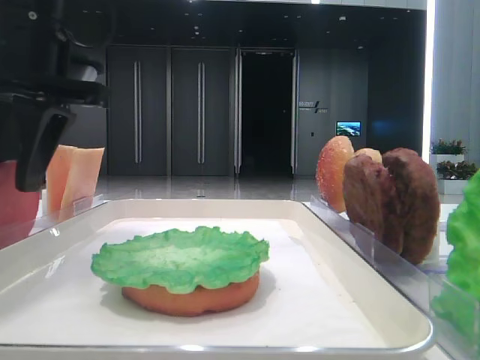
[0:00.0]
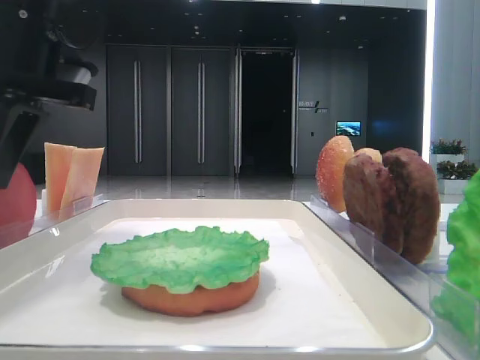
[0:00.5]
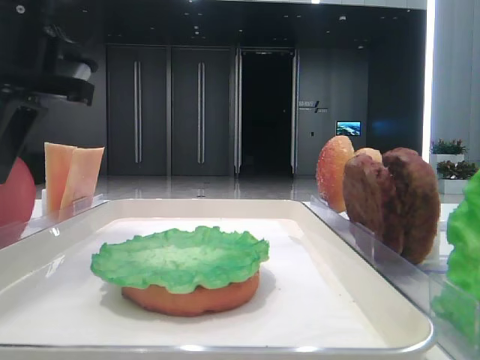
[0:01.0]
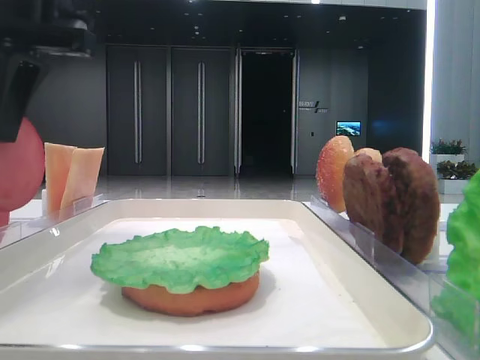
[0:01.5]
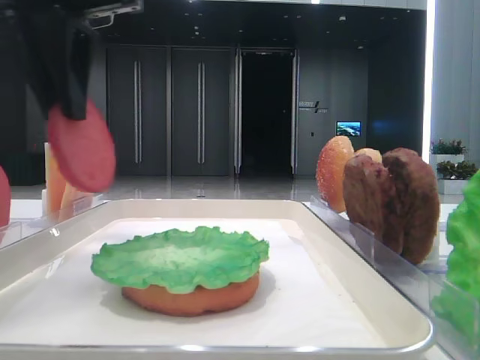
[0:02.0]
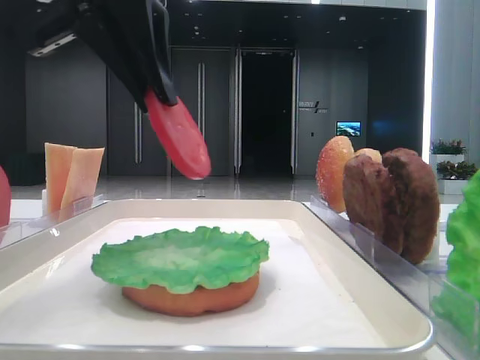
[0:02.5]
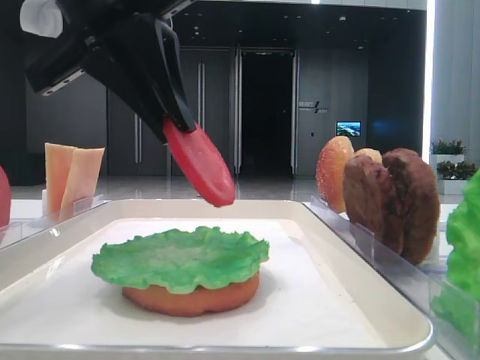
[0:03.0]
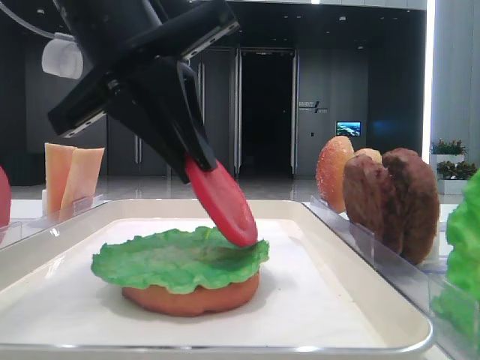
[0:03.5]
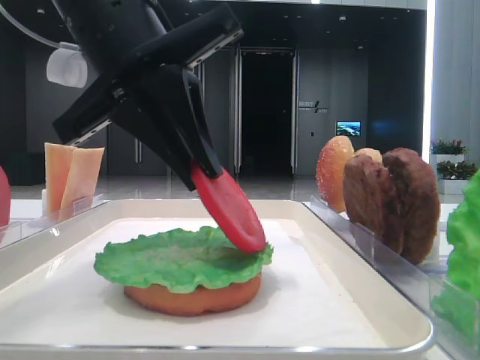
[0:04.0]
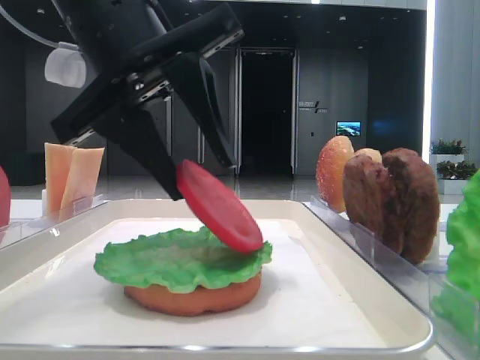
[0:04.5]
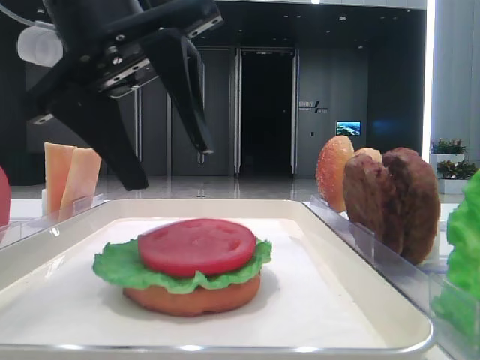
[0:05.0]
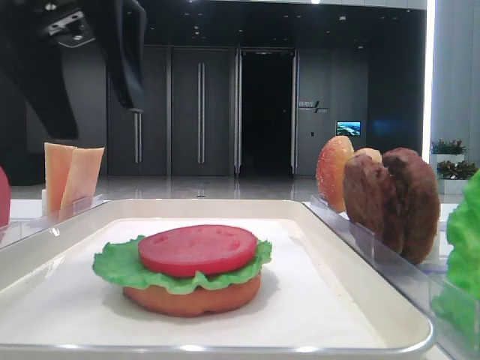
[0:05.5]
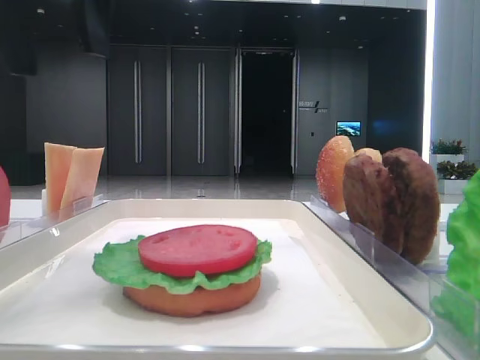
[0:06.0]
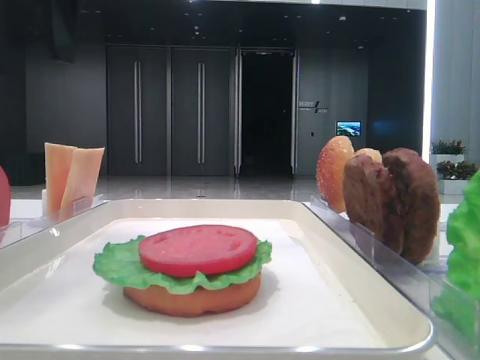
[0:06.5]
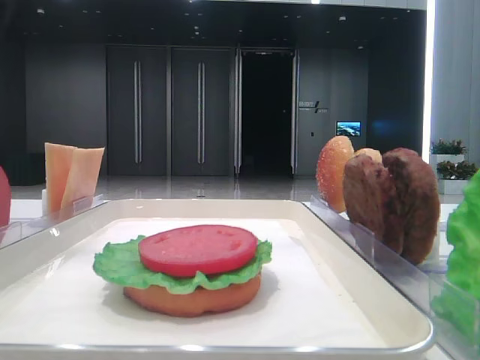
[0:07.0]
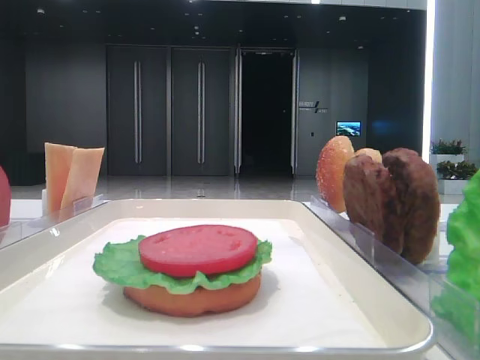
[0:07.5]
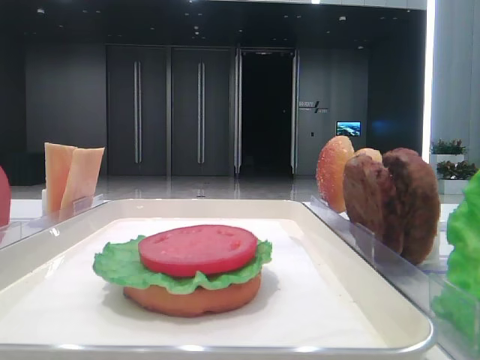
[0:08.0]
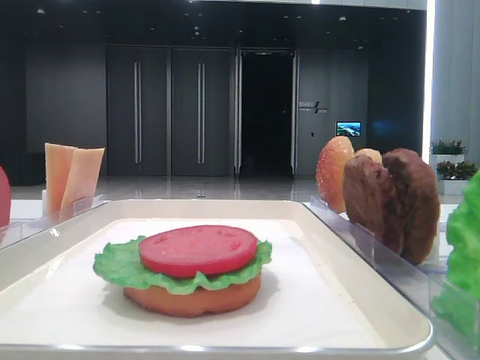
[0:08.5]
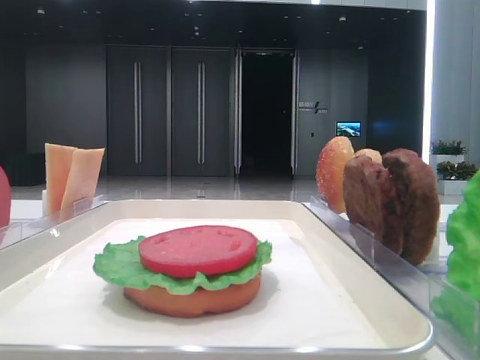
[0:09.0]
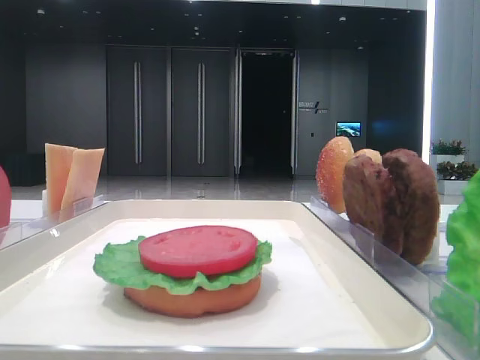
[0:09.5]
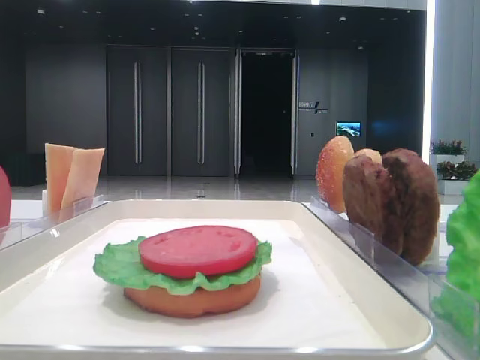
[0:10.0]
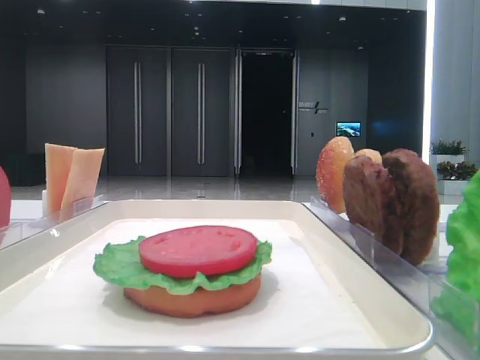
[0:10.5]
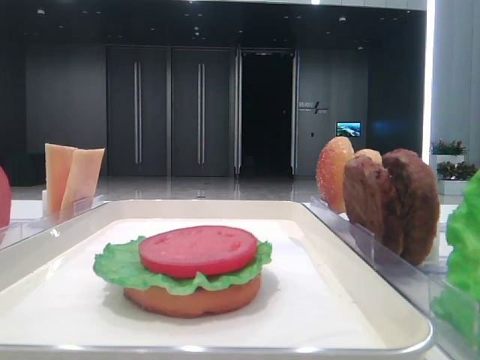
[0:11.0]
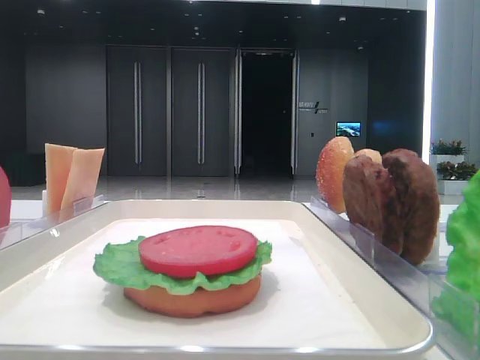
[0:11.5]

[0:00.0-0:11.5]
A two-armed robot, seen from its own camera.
Step, 0:00.5 to 0:05.0: Place the tomato slice on the lettuce leaf with the left hand.
0:00.0 to 0:02.0: The left gripper is displaced upward by approximately 5 cm, and closes its fingers.
0:02.0 to 0:04.0: The left gripper shifts some 10 cm downward and to the right.
0:04.0 to 0:06.0: The left gripper is displaced upward and to the left by some 10 cm, and opens its fingers.
0:06.0 to 0:07.5: The left gripper heads to the left, covering roughly 15 cm.

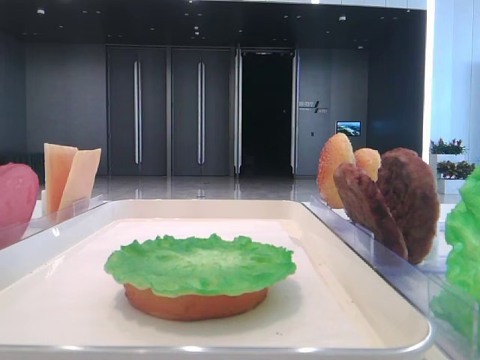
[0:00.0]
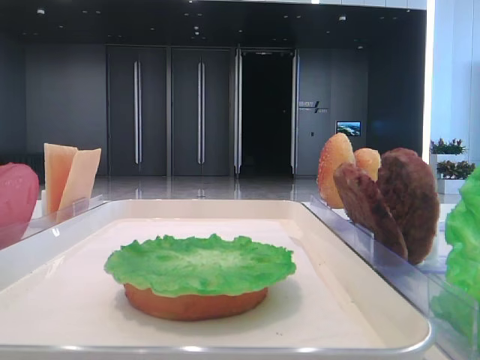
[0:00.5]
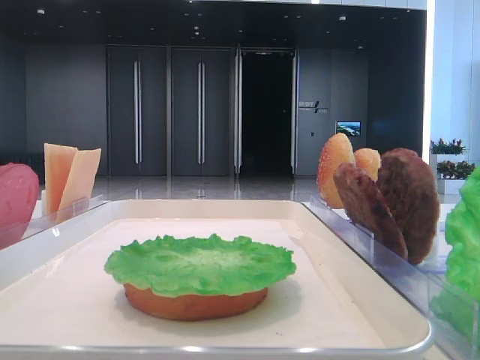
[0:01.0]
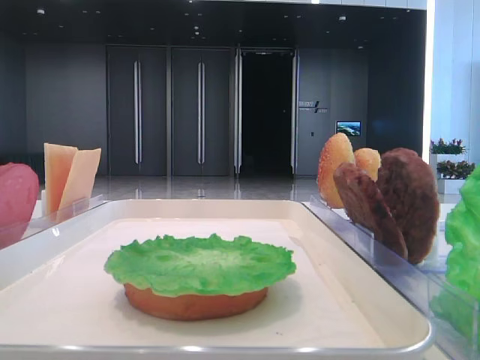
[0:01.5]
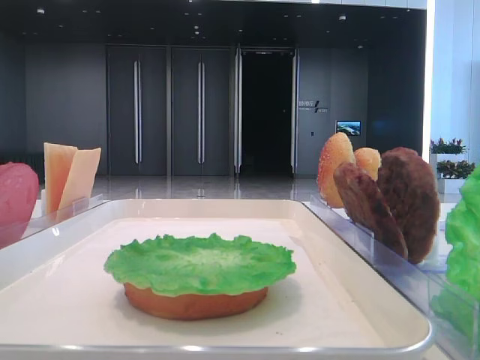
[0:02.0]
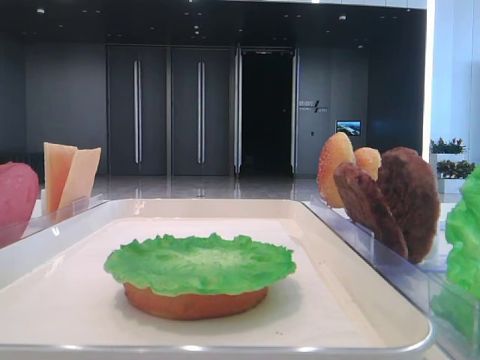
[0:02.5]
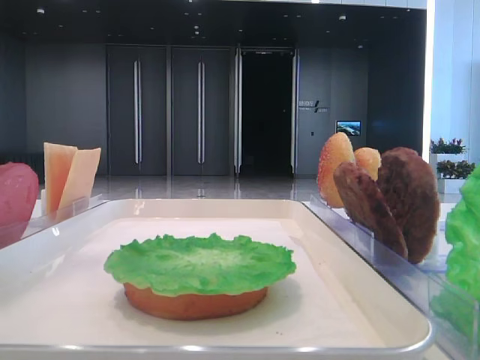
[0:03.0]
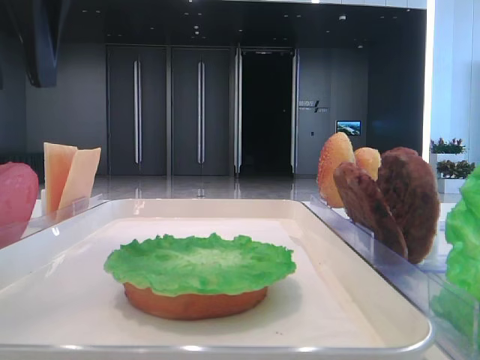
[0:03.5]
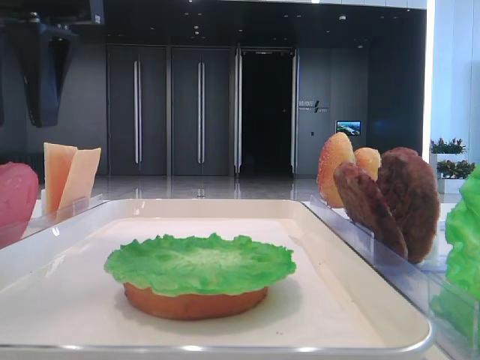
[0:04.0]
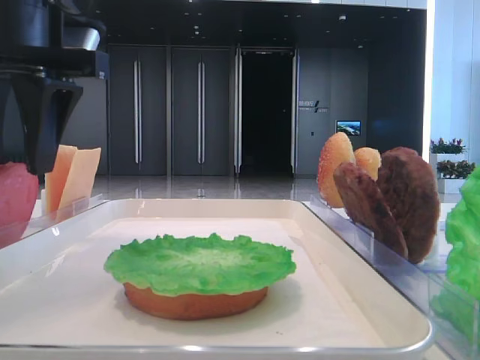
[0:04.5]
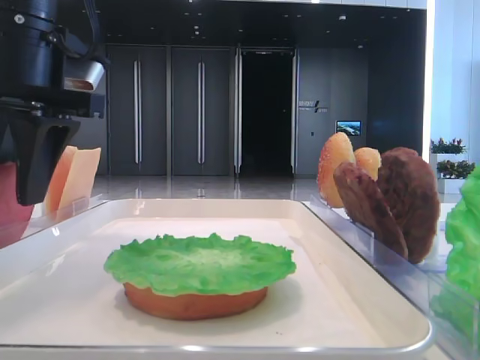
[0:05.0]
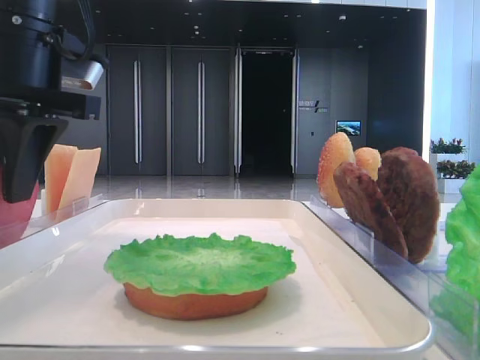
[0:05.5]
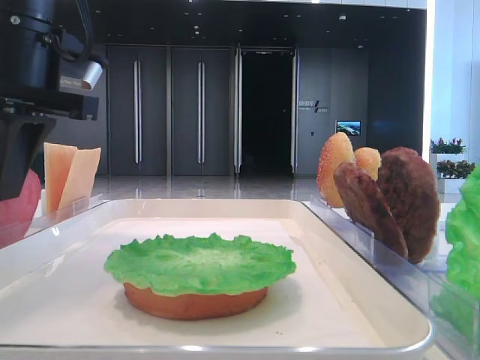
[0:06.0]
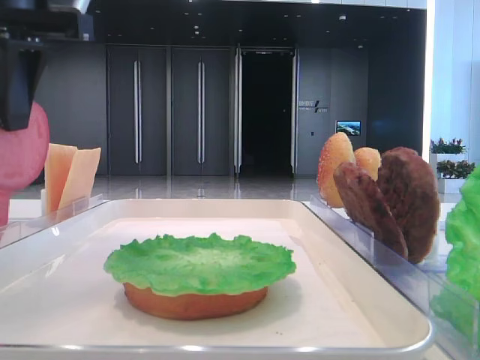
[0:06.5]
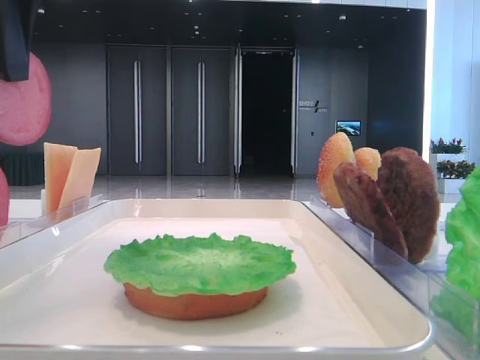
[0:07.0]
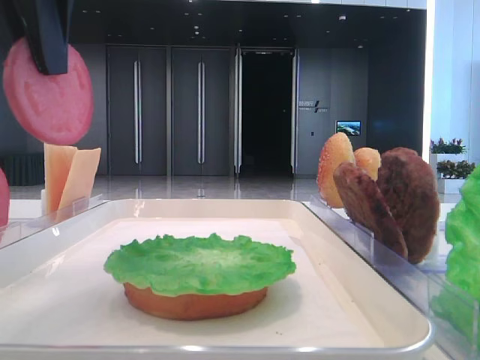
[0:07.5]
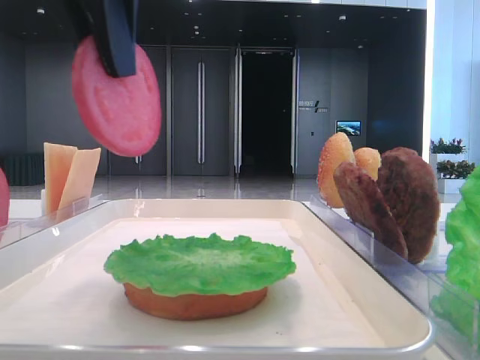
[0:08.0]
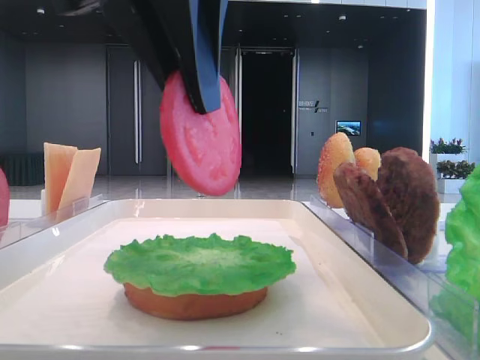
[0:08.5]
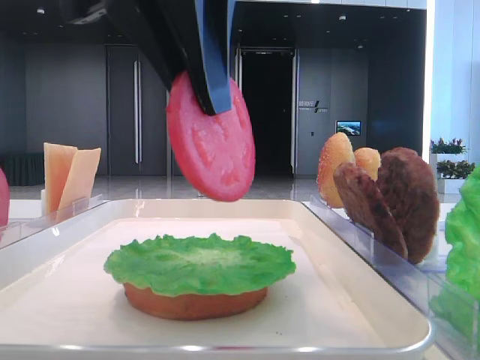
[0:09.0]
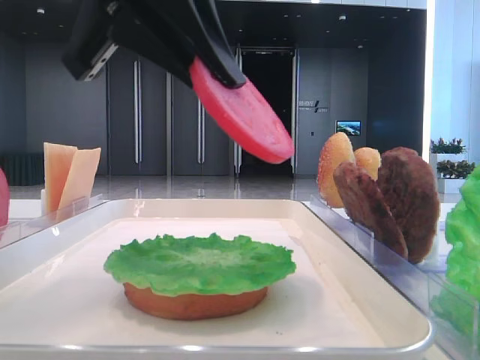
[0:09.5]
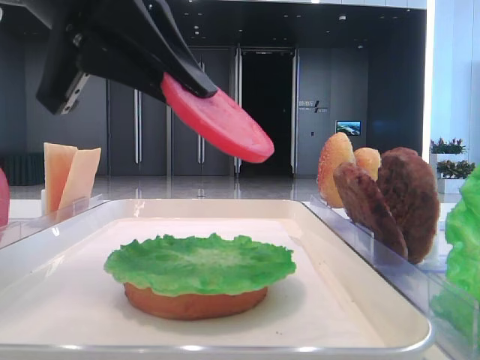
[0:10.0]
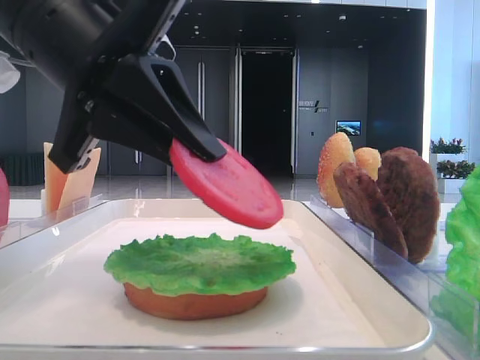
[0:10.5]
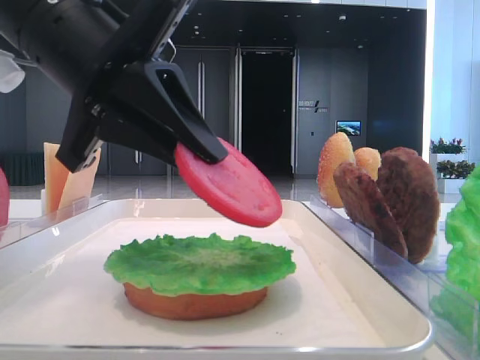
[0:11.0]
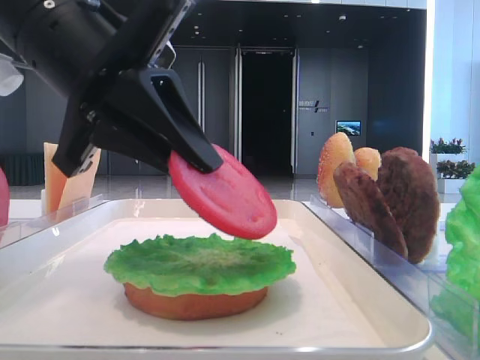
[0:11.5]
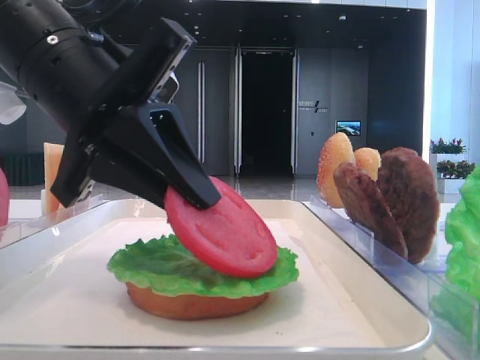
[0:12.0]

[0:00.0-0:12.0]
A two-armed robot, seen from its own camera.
Step, 0:00.0 to 0:05.5: Pick up the tomato slice with the left hand.
0:02.0 to 0:04.0: The left gripper shifts some 15 cm to the right.
0:04.0 to 0:06.0: The left gripper moves downward, approximately 5 cm, and closes.
0:06.0 to 0:08.0: The left gripper travels backward, upward and to the right by some 15 cm.
0:08.0 to 0:10.0: The left gripper is displaced downward by some 5 cm.
0:10.0 to 0:12.0: The left gripper heads downward, covering approximately 5 cm.

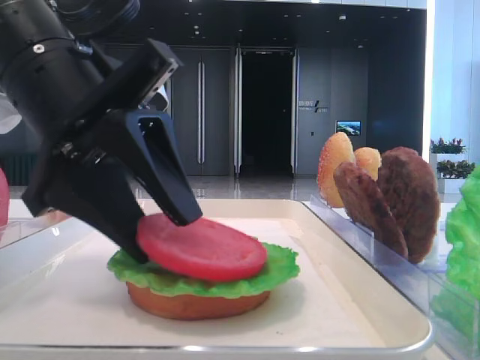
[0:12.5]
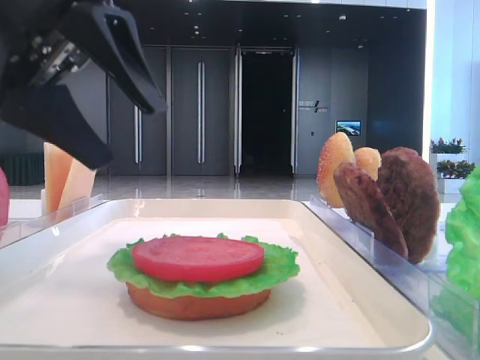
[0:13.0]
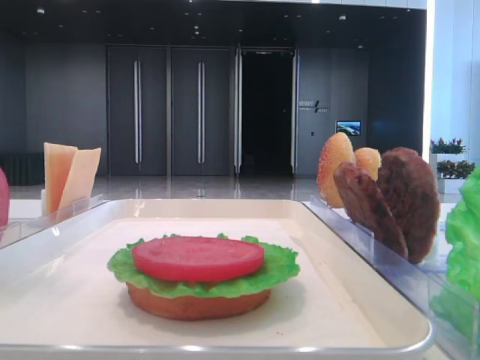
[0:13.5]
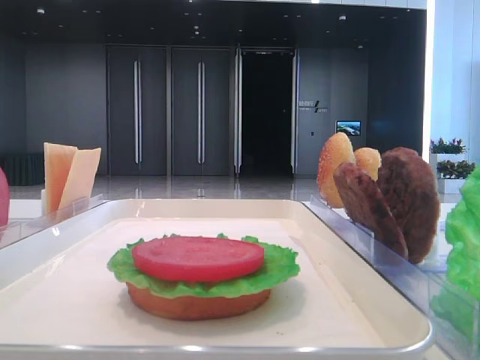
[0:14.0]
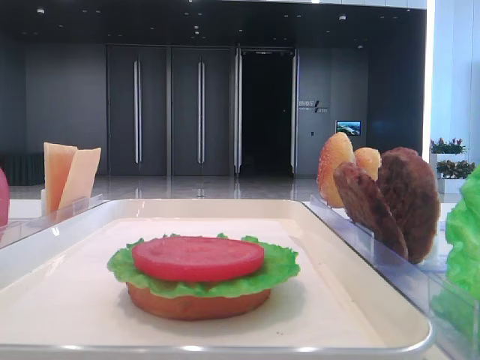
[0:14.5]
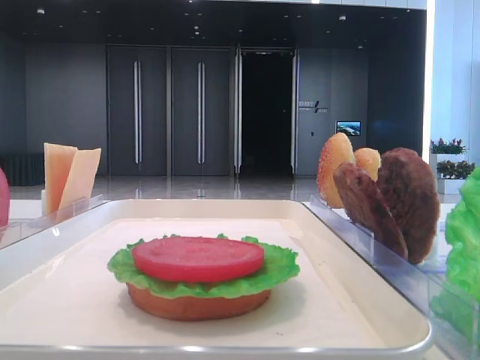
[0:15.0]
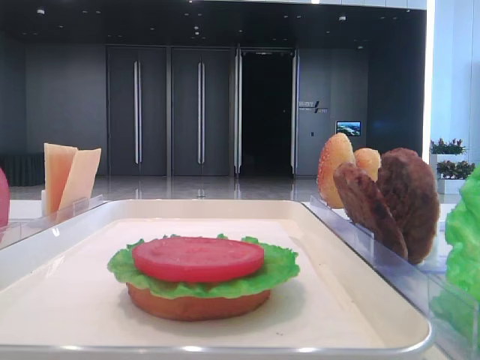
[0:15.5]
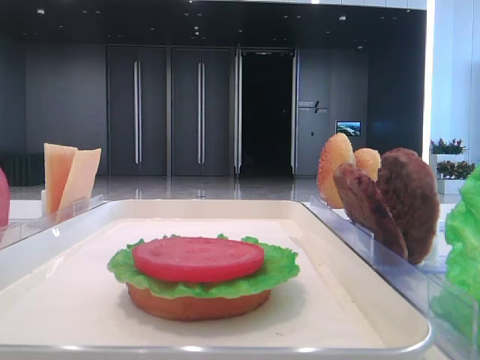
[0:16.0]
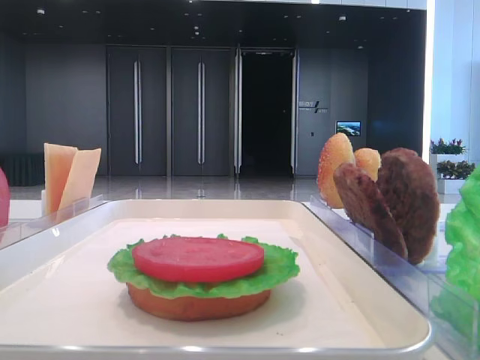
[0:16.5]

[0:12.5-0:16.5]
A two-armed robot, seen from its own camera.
0:12.5 to 0:14.5: The left gripper goes some 25 cm to the left and upward.
